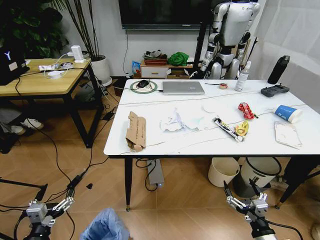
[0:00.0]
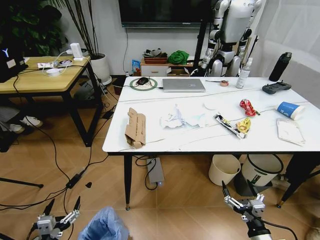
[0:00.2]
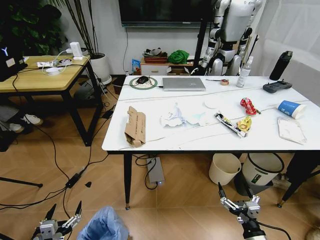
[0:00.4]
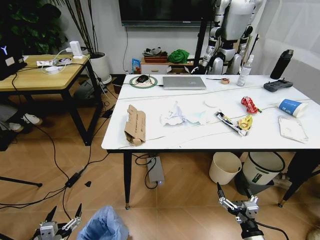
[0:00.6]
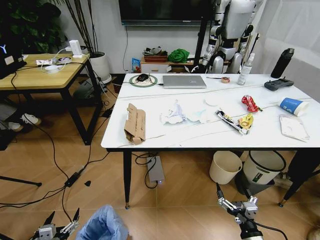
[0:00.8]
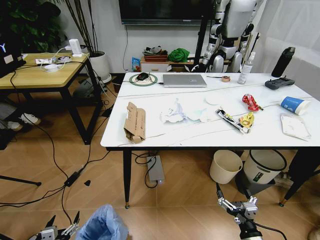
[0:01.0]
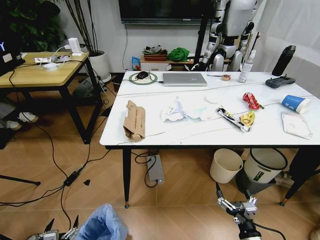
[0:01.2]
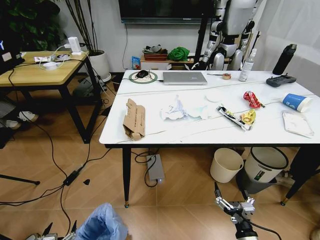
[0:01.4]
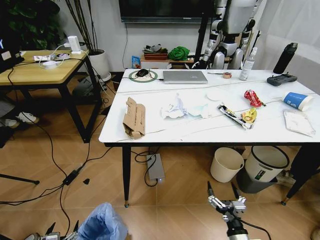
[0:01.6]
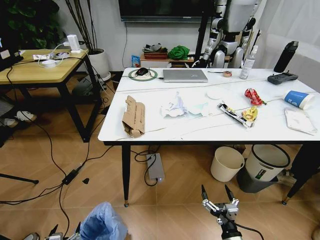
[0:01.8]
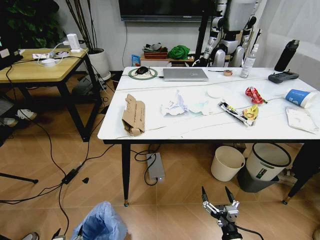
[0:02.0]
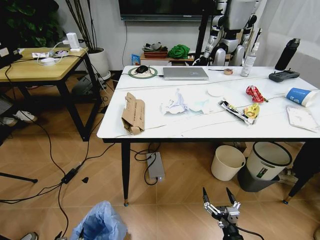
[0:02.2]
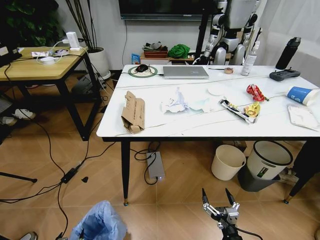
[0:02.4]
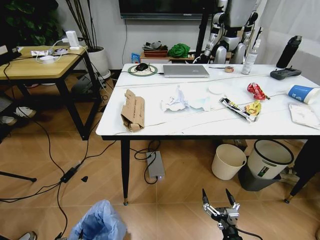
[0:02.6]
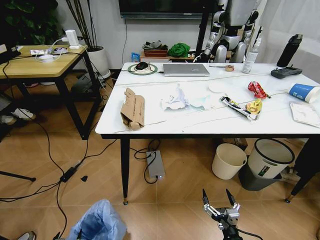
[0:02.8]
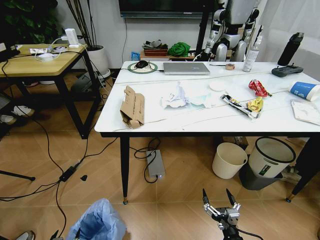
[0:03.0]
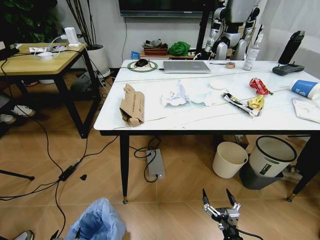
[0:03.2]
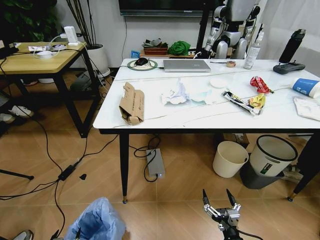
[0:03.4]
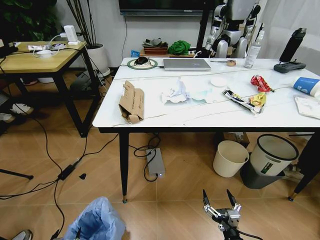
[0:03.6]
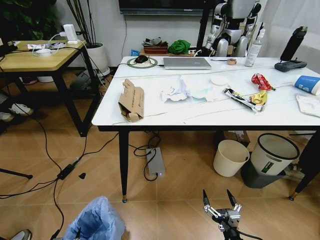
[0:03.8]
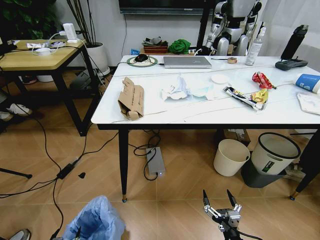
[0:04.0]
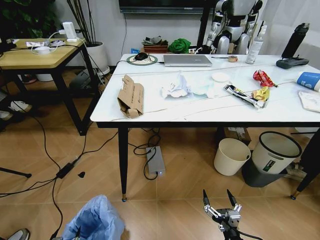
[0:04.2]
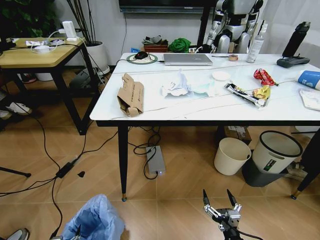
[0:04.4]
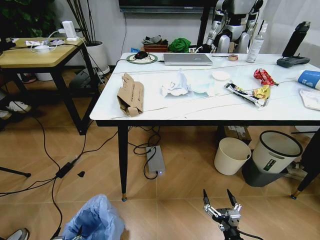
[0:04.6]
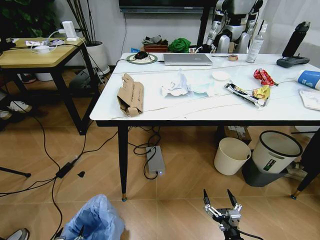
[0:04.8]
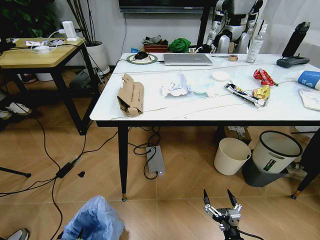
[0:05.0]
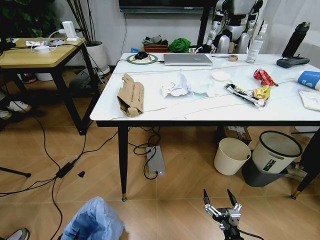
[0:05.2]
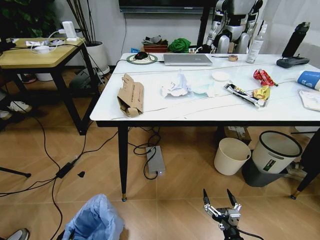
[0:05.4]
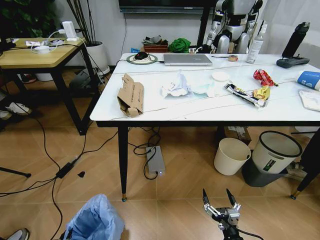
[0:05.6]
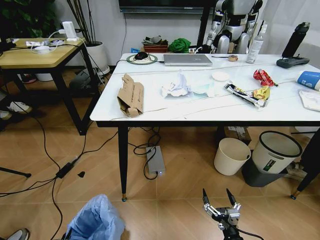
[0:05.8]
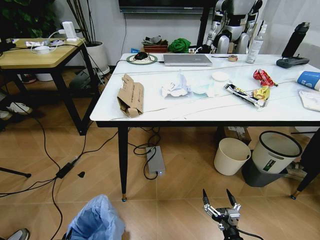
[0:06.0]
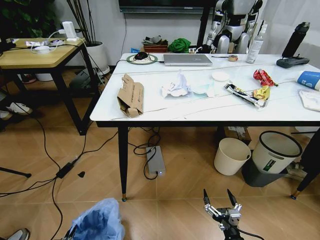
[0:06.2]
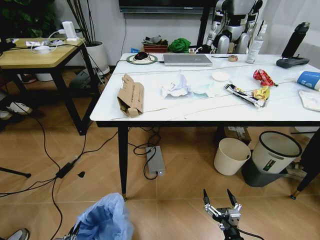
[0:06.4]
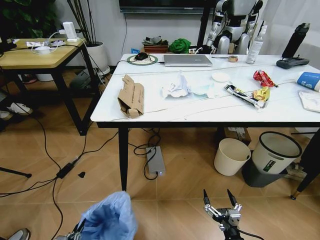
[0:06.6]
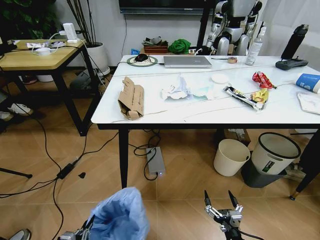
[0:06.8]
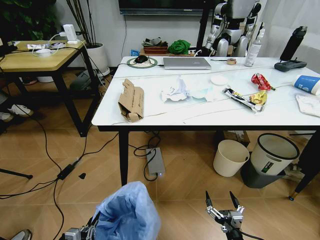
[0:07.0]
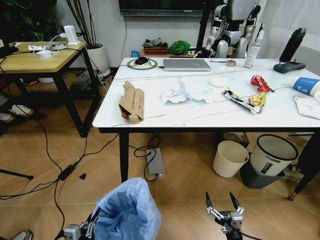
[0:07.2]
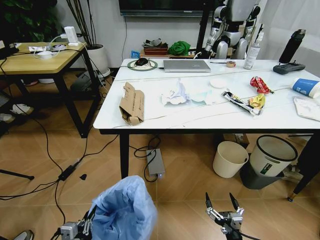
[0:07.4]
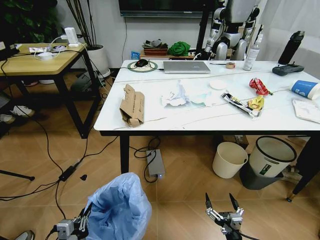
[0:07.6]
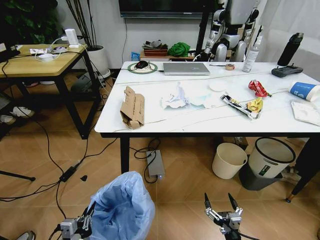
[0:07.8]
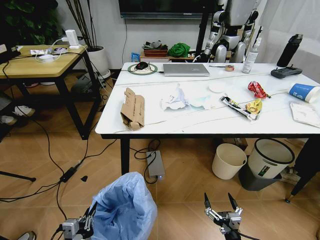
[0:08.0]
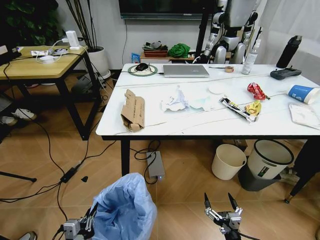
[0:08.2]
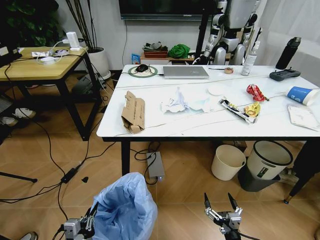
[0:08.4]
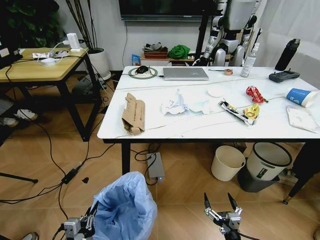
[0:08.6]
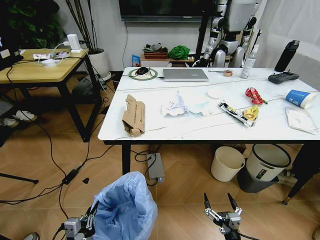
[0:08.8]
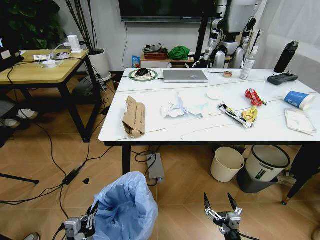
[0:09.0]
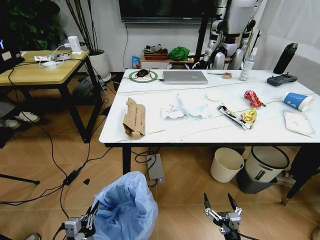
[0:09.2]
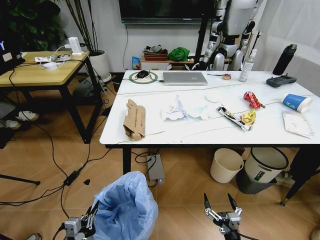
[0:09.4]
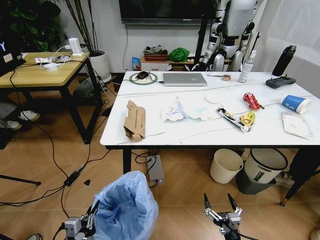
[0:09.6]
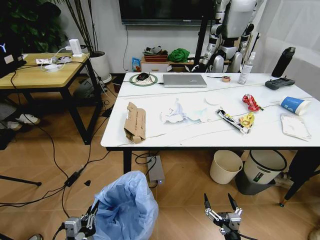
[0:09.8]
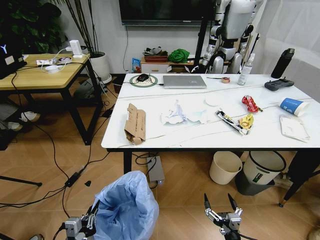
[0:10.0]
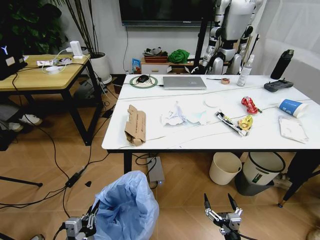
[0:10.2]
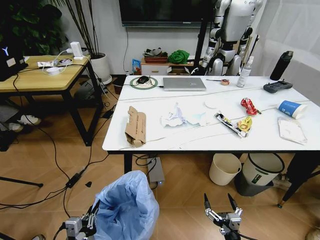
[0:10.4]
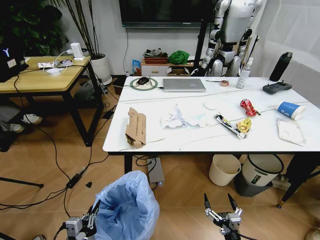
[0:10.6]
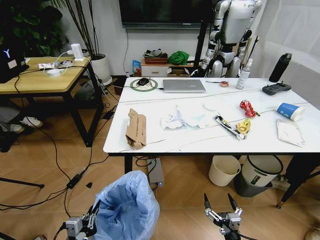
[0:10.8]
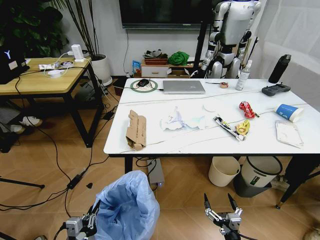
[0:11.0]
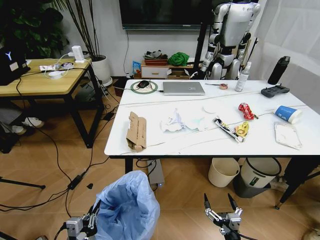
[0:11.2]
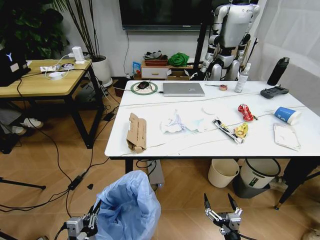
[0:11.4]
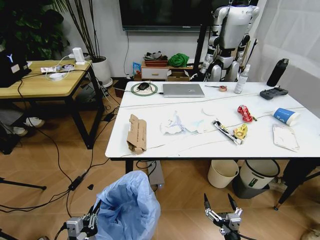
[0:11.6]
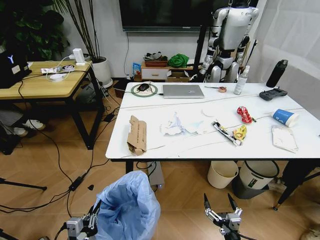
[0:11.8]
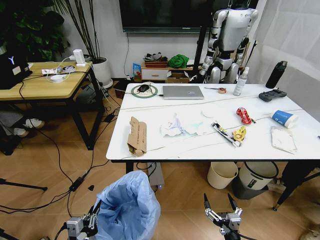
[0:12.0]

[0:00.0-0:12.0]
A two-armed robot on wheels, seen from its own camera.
Task of the whole recording: Pick up the trash bin and place the trash from the table into it.
0:04.4 to 0:06.0: The left gripper closes its fingers.
0:06.0 to 0:07.6: The left gripper is displaced upward and to the right by some 20 cm.

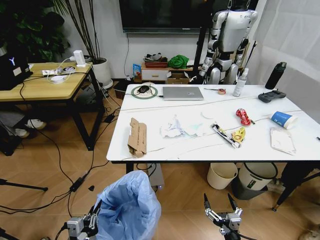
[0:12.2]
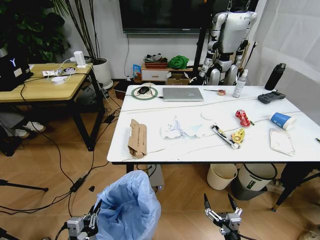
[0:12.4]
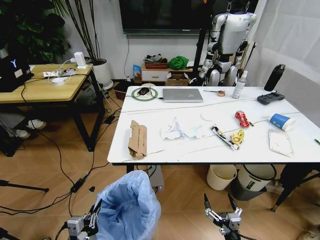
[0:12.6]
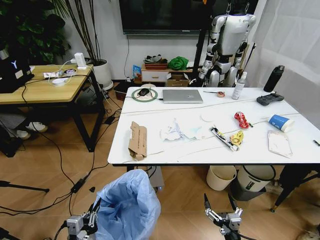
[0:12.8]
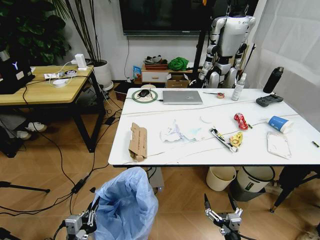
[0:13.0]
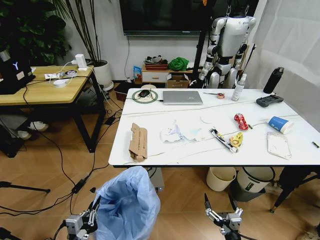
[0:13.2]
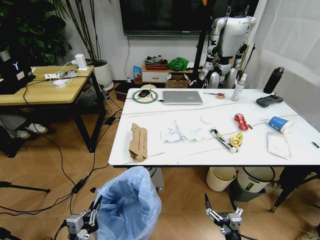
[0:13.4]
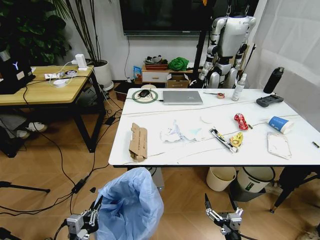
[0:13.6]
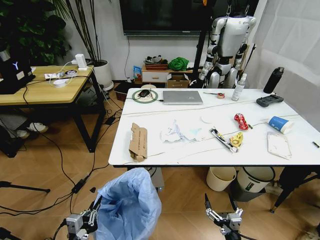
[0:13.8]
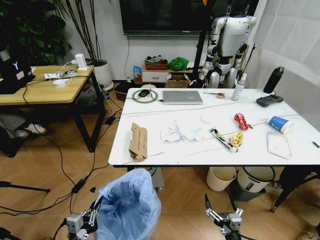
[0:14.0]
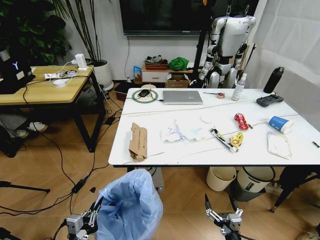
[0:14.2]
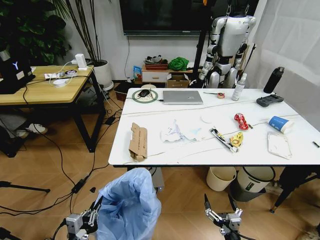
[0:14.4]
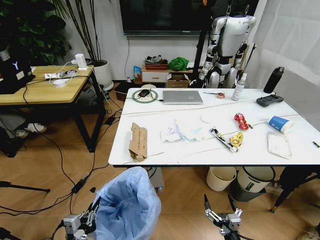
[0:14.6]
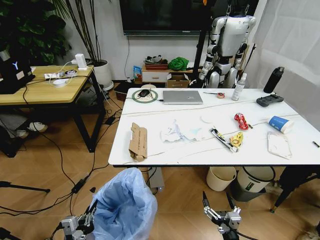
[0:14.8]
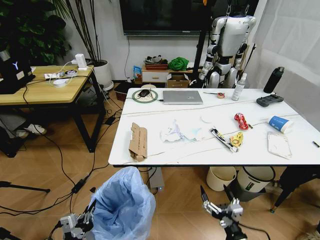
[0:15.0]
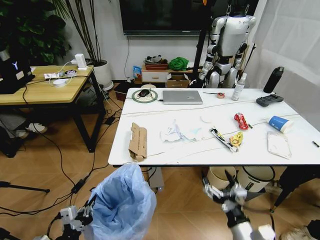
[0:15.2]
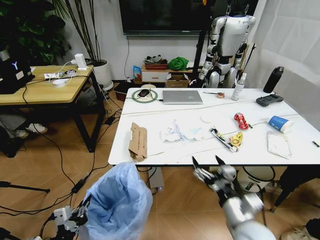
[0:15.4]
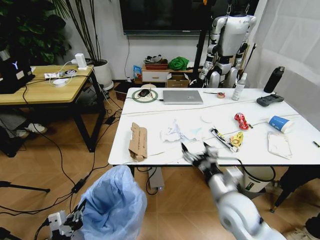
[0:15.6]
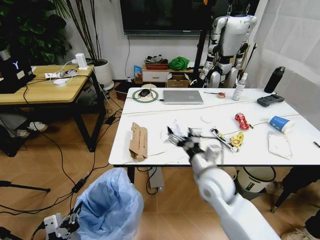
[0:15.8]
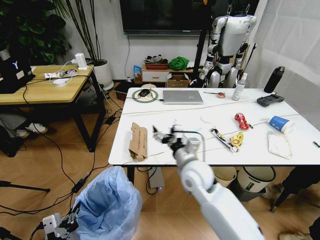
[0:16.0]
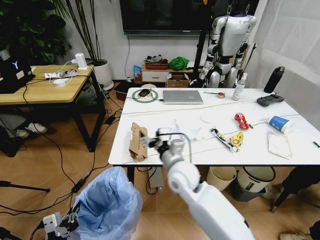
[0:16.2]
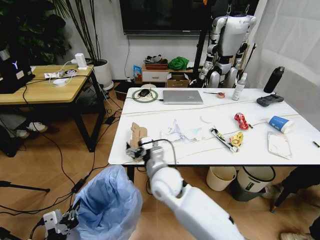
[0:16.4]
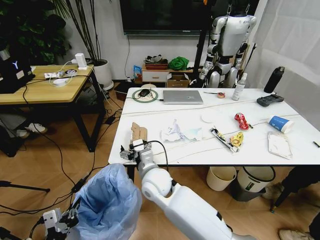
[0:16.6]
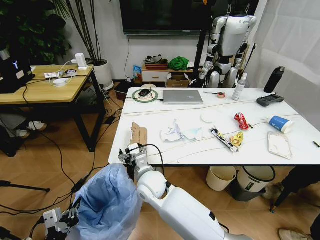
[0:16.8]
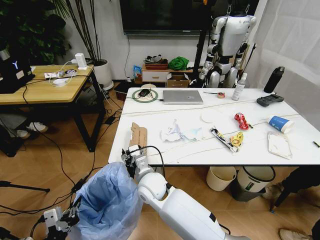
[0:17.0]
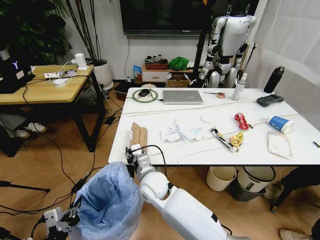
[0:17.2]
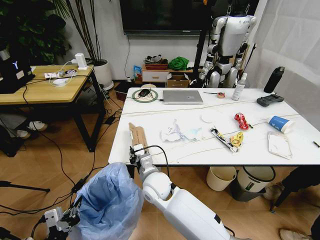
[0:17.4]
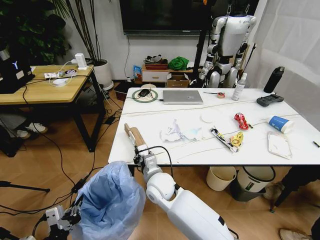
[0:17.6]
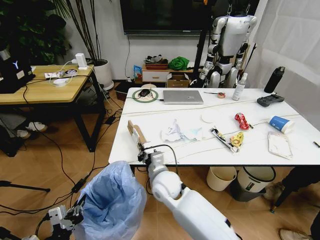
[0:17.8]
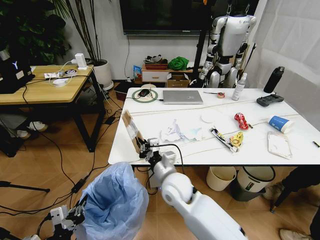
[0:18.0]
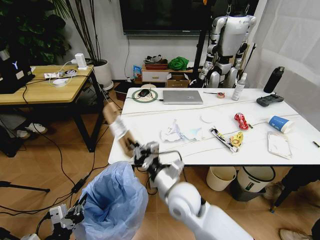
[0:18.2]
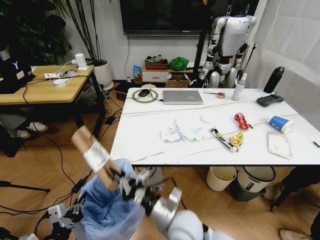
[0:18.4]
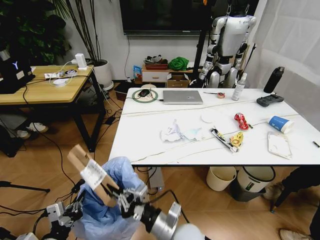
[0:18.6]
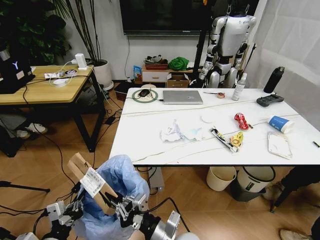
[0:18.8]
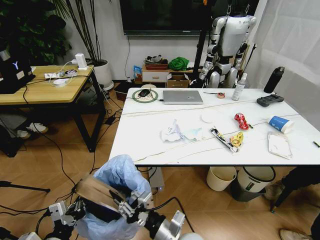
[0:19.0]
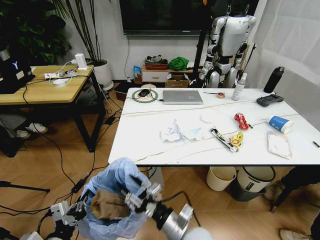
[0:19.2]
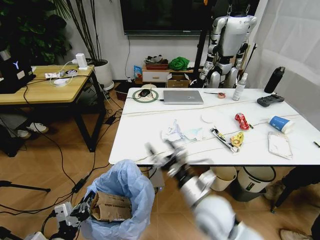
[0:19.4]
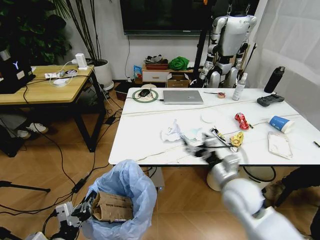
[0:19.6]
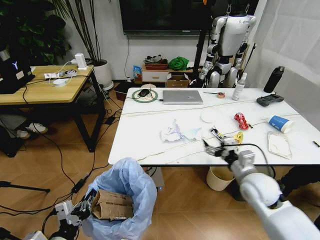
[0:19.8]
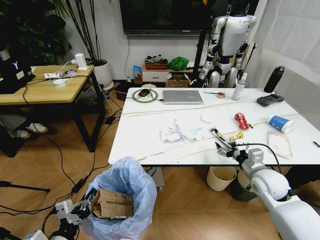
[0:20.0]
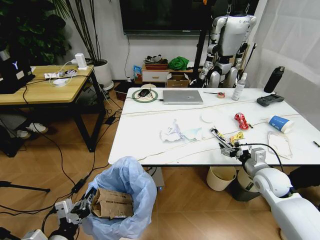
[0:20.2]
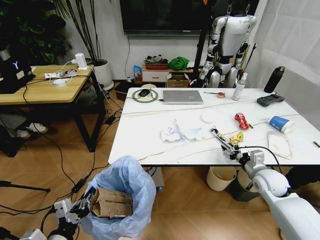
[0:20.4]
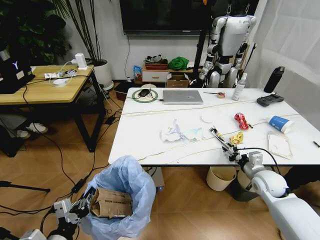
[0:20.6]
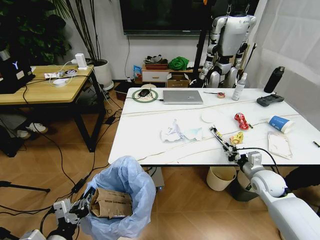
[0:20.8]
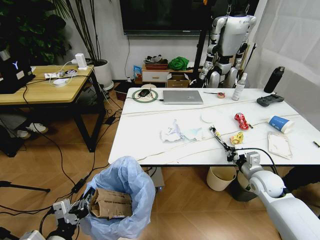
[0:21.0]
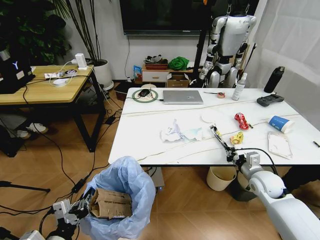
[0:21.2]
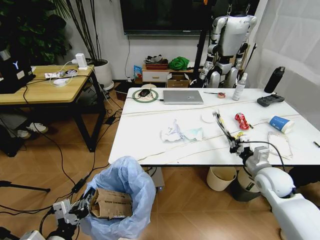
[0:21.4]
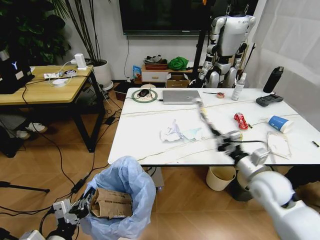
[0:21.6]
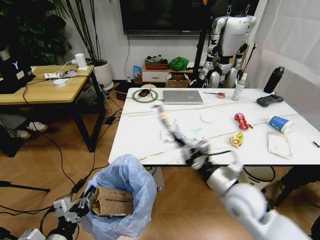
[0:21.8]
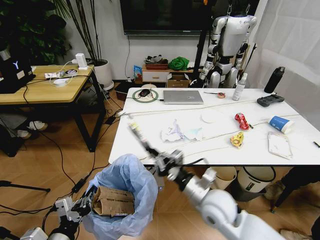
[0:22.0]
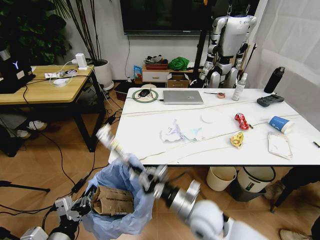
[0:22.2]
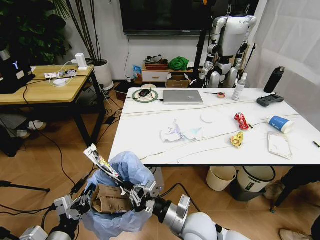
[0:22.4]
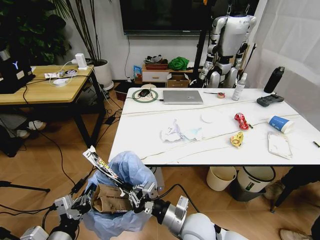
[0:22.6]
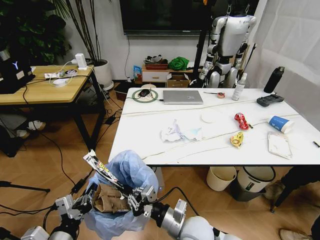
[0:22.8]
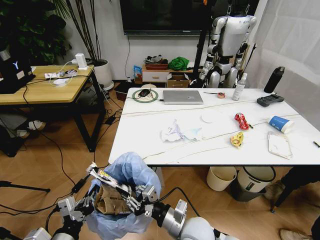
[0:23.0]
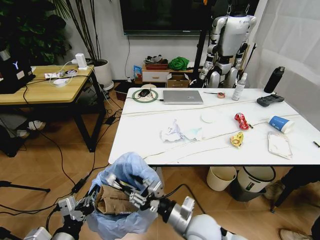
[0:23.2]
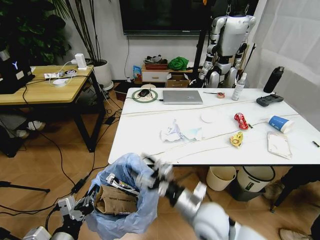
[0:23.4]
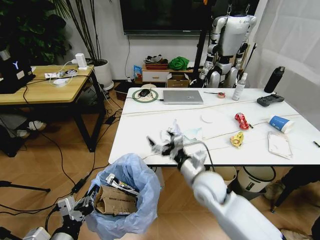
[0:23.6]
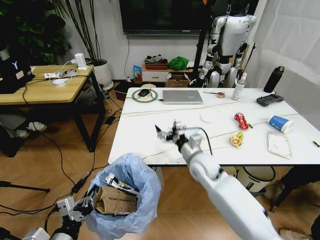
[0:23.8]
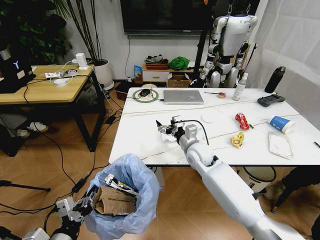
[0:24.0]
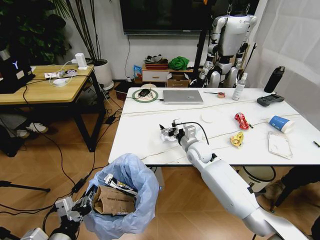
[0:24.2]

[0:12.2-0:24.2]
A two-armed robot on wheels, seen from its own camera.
Task of the whole recording: Pick up the trash bin and place the trash from the table into it.
0:13.8 to 0:15.2: The right gripper heads upward, covering about 10 cm; the left gripper changes place by some 5 cm.
0:15.2 to 0:16.6: The right gripper is displaced to the left and forward by about 35 cm.
0:16.6 to 0:18.2: The right gripper travels to the right and backward by some 10 cm, and closes up.
0:18.2 to 0:19.8: The right gripper is displaced to the right by about 25 cm, and opens its fingers.
0:19.8 to 0:21.2: The right gripper is displaced to the right and downward by about 10 cm, and closes.
0:21.2 to 0:22.6: The right gripper is displaced to the left and backward by roughly 30 cm.
0:22.6 to 0:24.2: The right gripper is displaced forward by roughly 25 cm, and opens up.
